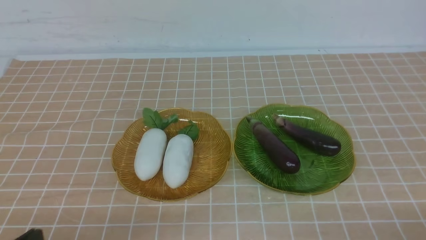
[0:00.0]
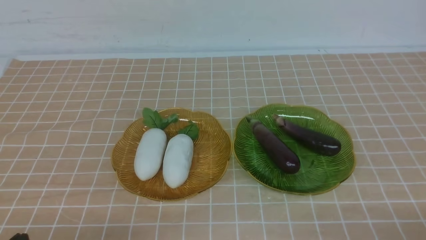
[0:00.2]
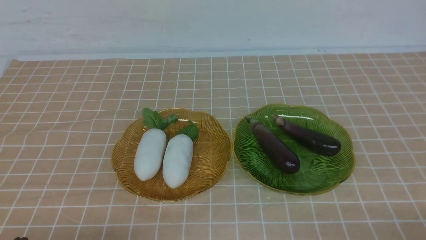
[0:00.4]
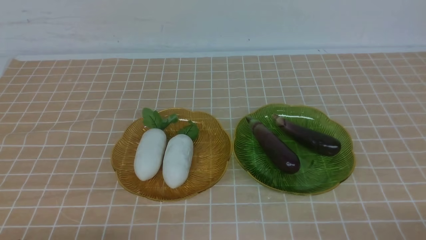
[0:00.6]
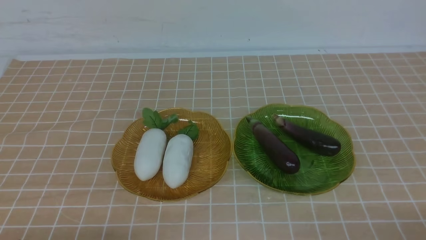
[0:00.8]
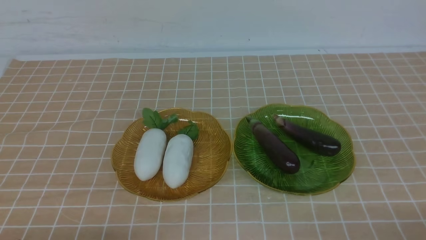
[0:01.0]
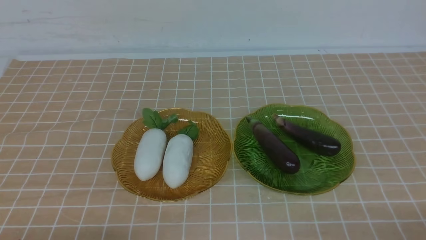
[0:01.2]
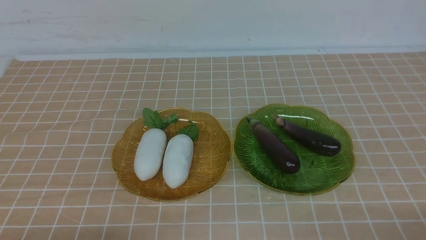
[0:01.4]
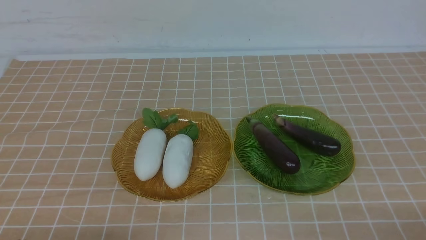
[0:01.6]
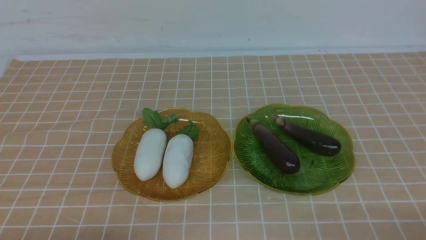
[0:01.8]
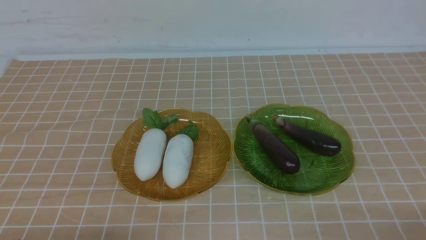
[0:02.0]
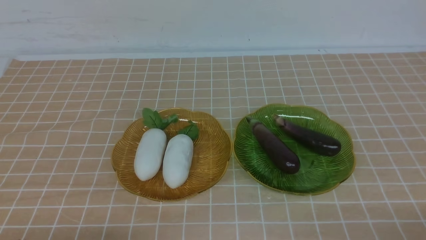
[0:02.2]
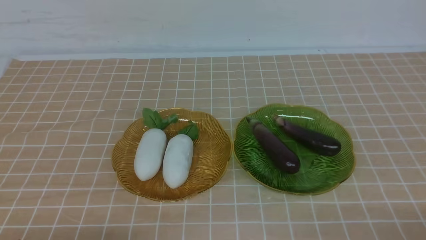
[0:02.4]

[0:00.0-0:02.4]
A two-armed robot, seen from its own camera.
0:00.0 to 0:02.4: Both grippers stay about where they are.
